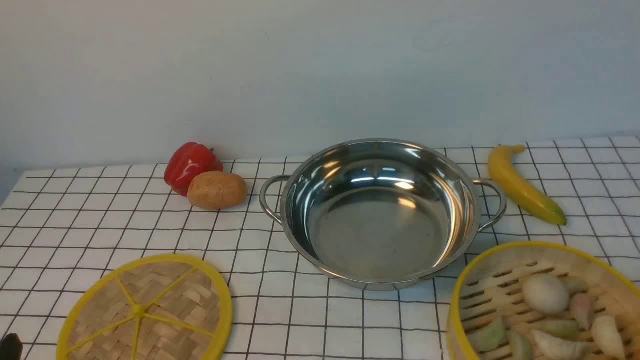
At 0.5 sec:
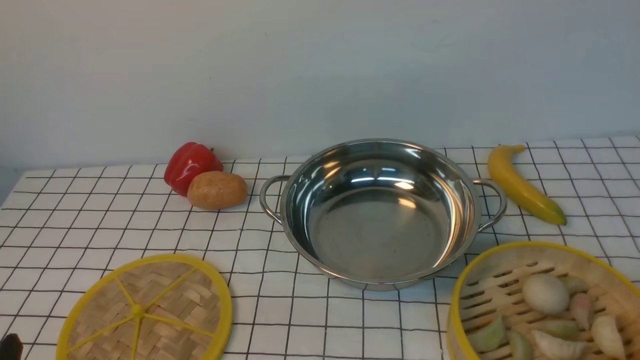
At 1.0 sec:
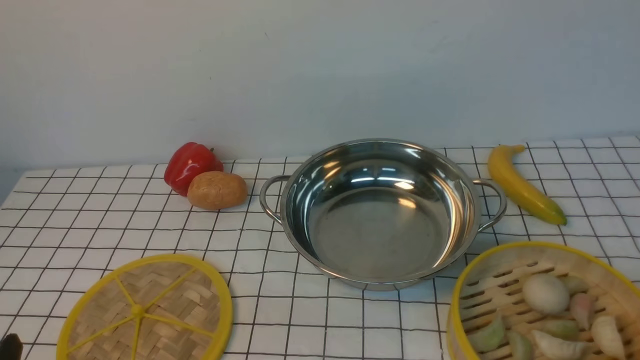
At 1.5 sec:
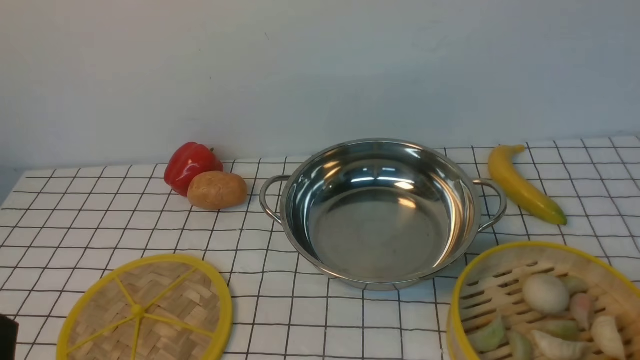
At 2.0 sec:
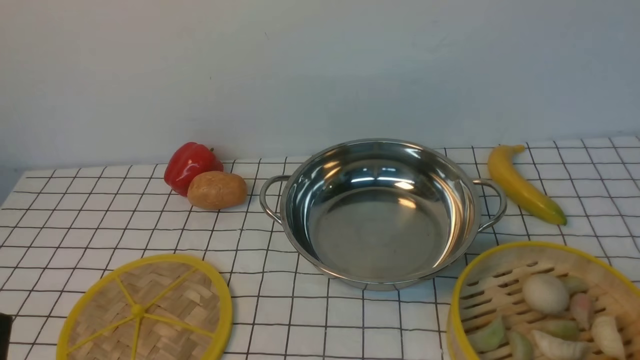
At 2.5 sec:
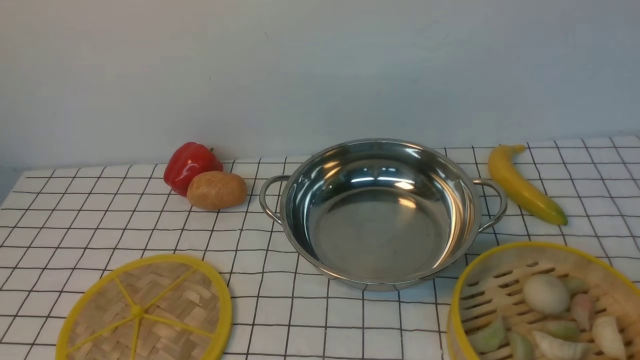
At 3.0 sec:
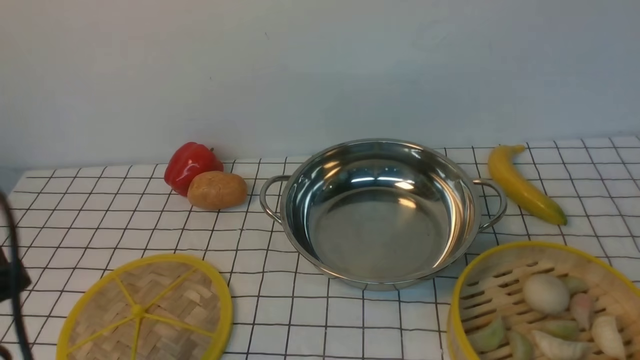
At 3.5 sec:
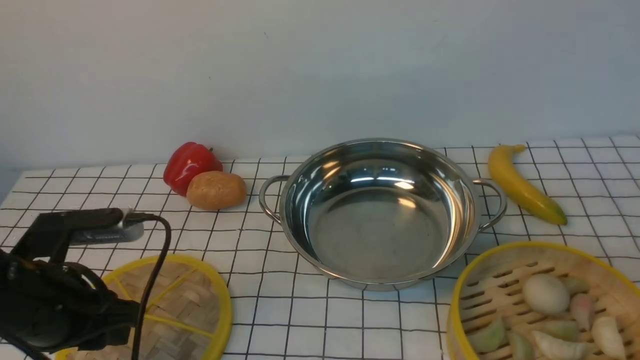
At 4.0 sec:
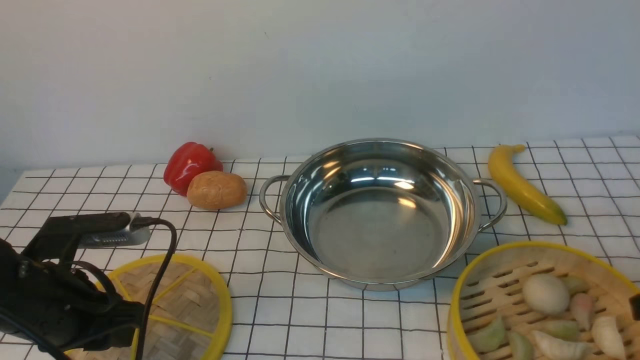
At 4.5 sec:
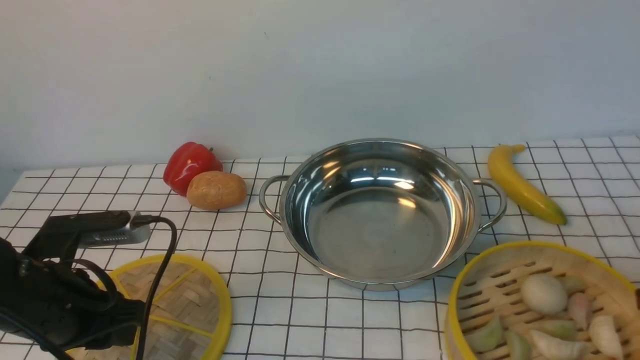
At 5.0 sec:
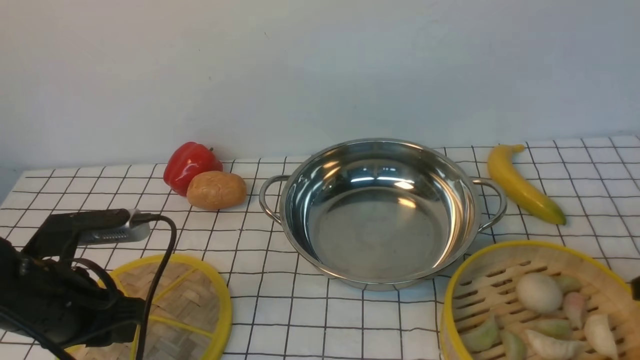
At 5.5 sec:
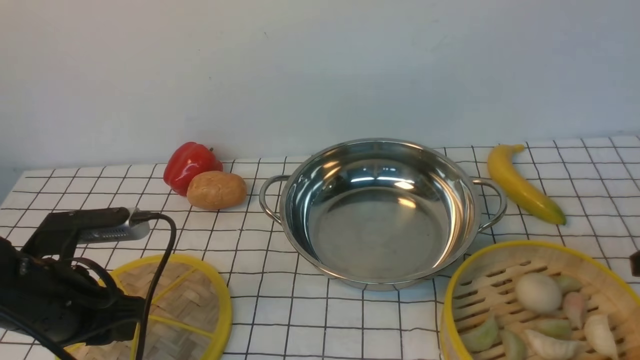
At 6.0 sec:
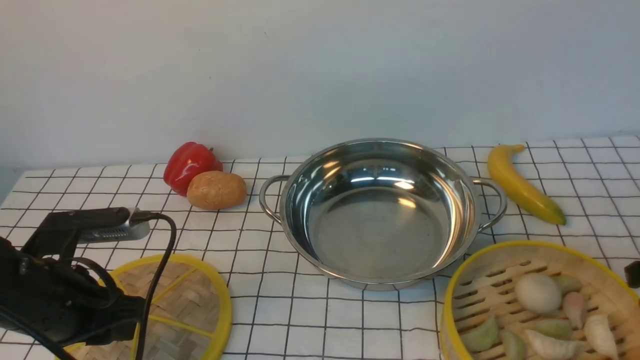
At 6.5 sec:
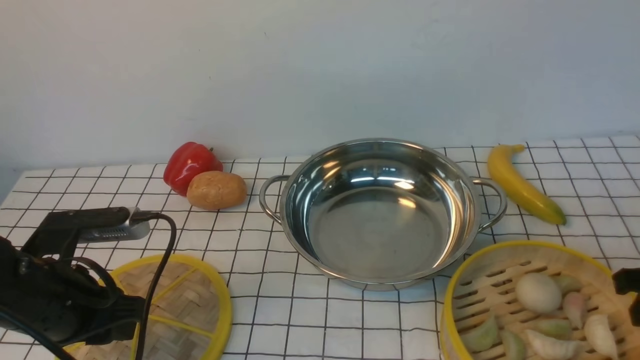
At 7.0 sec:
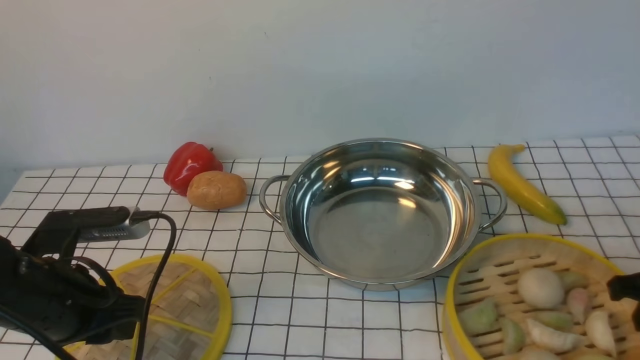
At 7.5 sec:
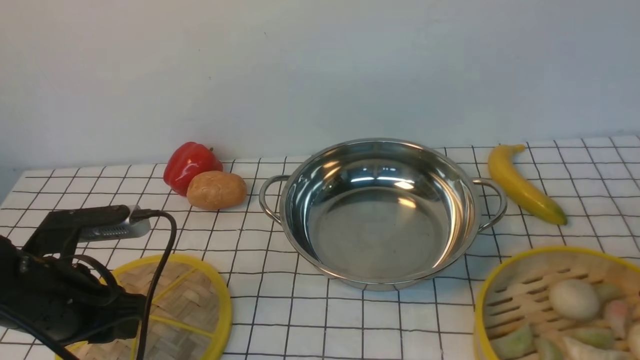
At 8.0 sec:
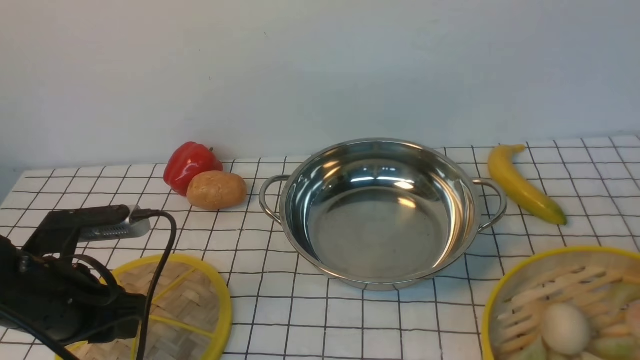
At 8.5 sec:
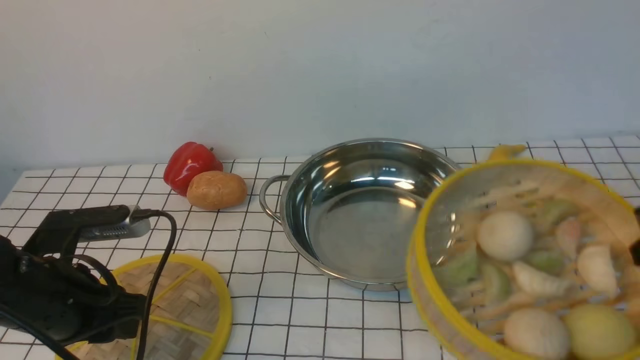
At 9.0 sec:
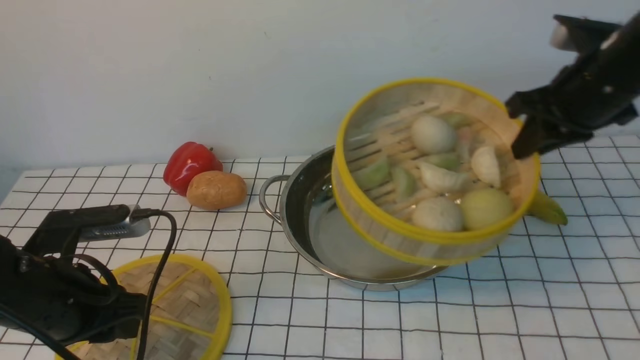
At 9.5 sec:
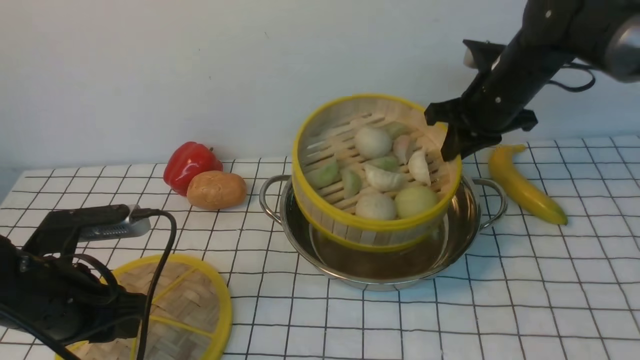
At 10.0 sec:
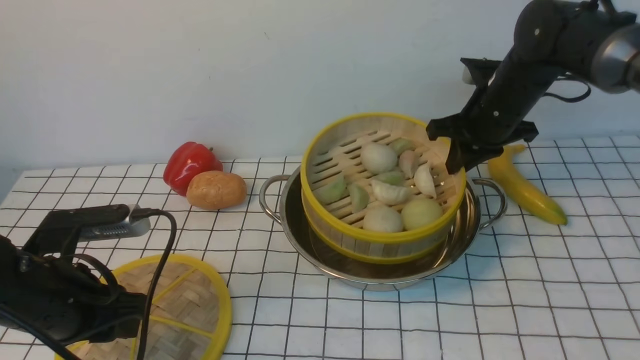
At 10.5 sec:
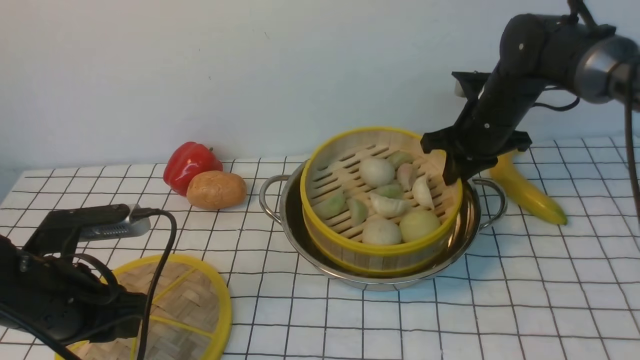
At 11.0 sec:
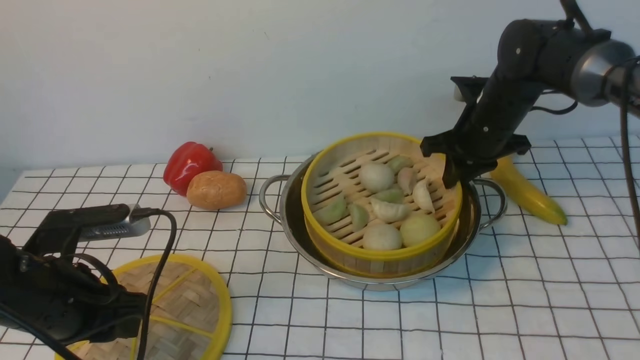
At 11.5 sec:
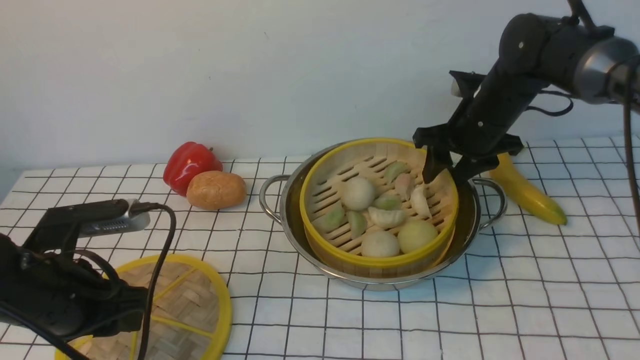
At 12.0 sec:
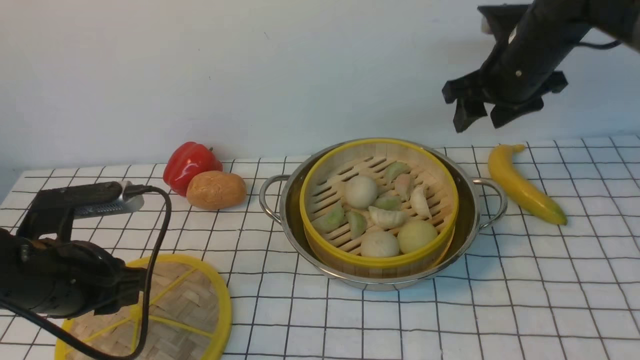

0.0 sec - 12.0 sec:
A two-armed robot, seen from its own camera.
Task of the whole recording: place the steamer in the pot on the white tablecloth, and put the lid on the steamer.
Step, 0.0 sec - 8.0 sec: use the right arm to lift the steamer closest to it.
Step, 8.5 sec - 11.5 sec: use the right arm to put the steamer into the iron steamer pot in the middle.
2.0 sec - 4.0 sec: The left gripper is displaced forward by about 15 cm.
4.0 sec - 6.0 sec: The grippers make only small movements.
6.0 sec - 8.0 sec: The right gripper closes its fingers.
8.0 sec - 10.0 sec: The right gripper goes approximately 30 cm forward and to the left.
10.0 sec - 12.0 sec: The right gripper heads upward, covering some 10 cm, and opens its fingers.

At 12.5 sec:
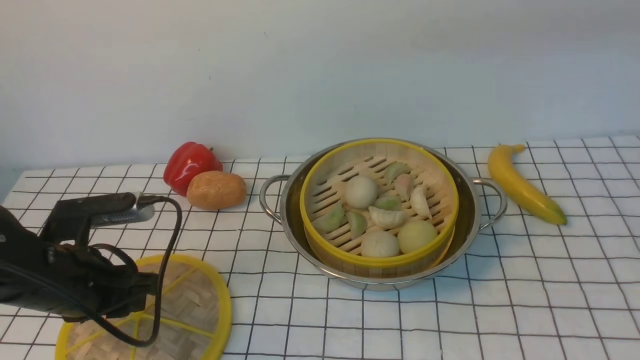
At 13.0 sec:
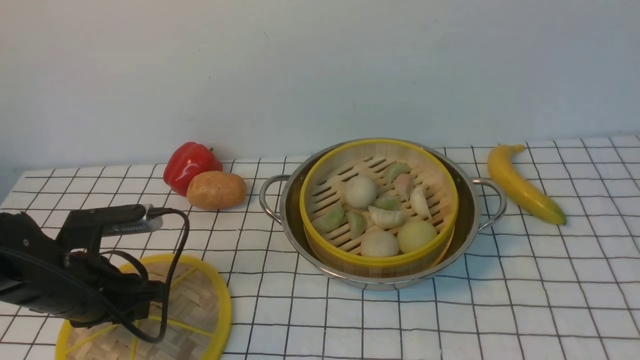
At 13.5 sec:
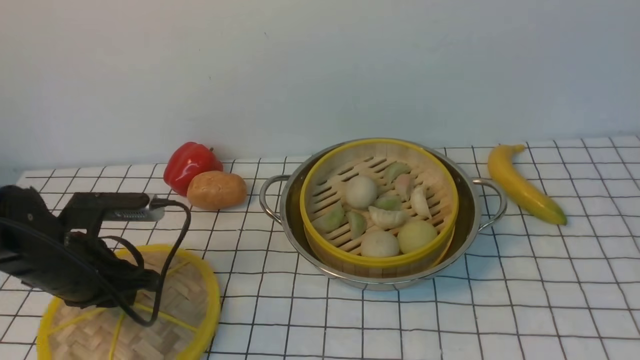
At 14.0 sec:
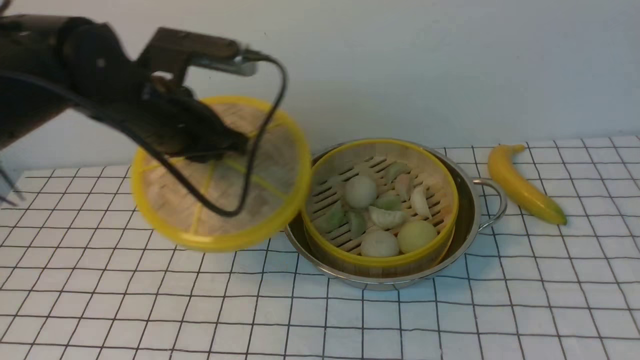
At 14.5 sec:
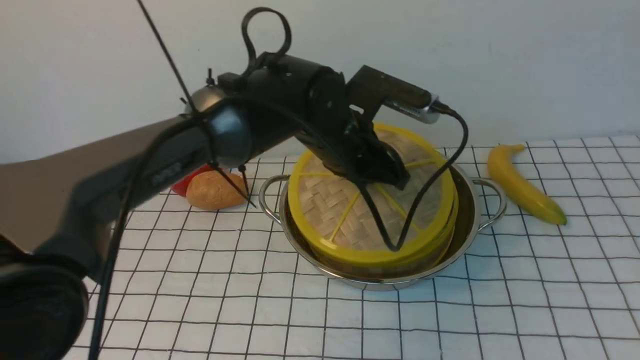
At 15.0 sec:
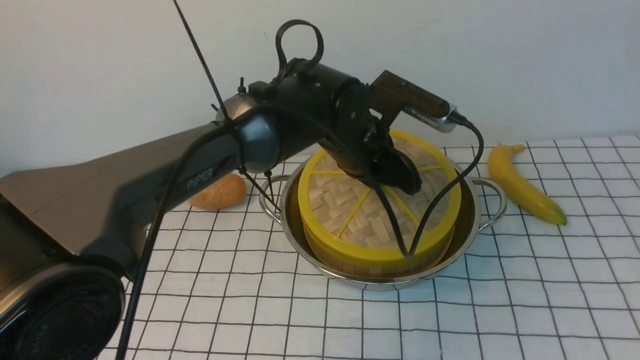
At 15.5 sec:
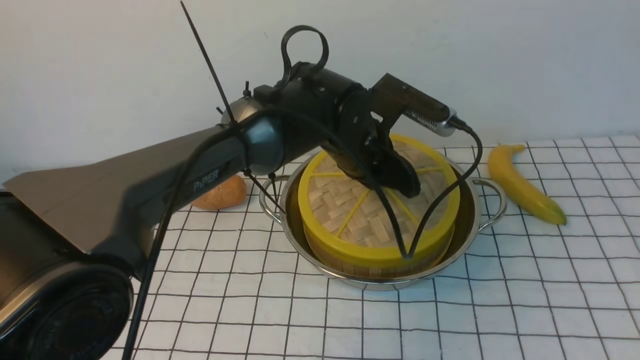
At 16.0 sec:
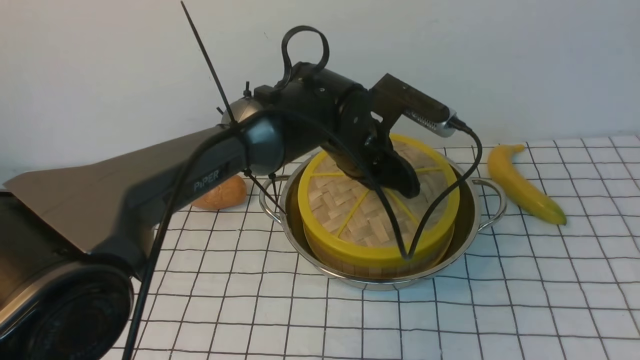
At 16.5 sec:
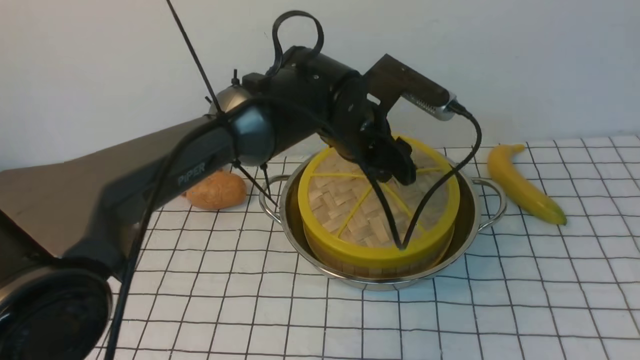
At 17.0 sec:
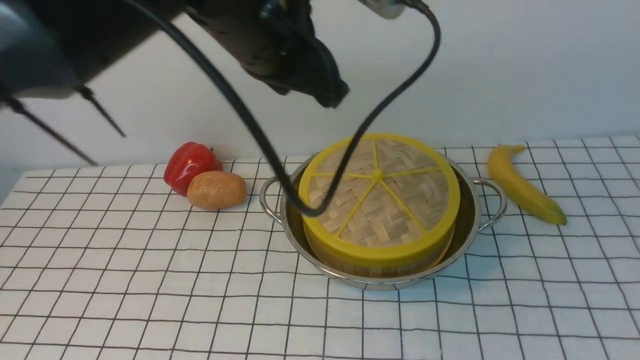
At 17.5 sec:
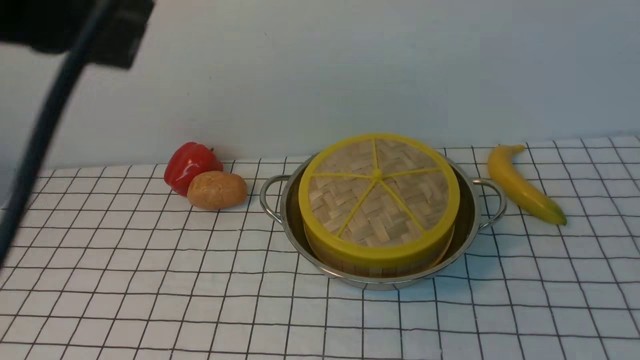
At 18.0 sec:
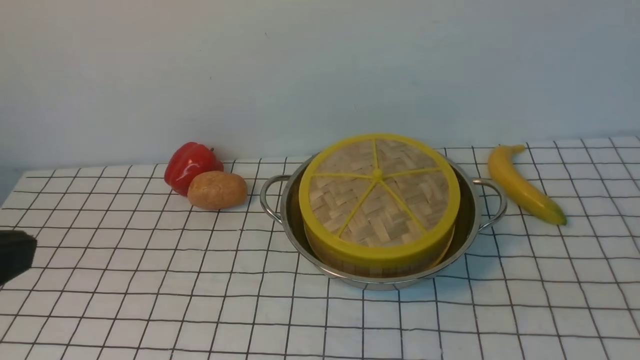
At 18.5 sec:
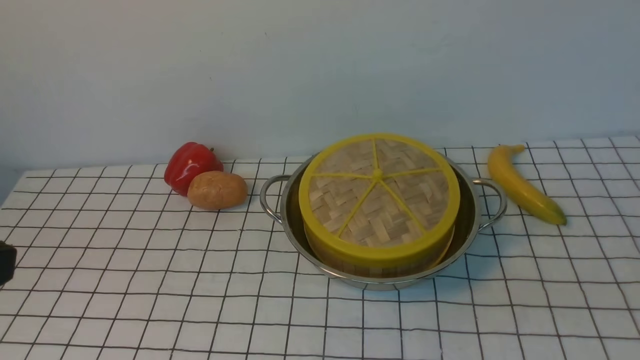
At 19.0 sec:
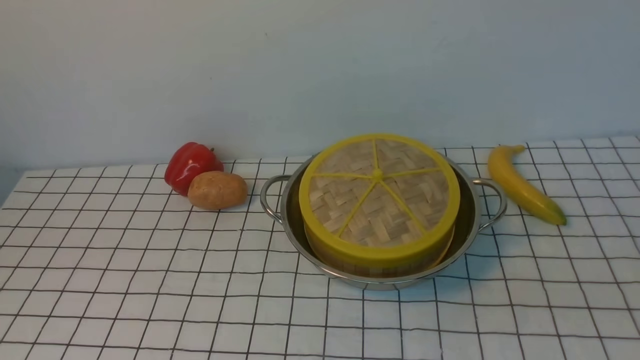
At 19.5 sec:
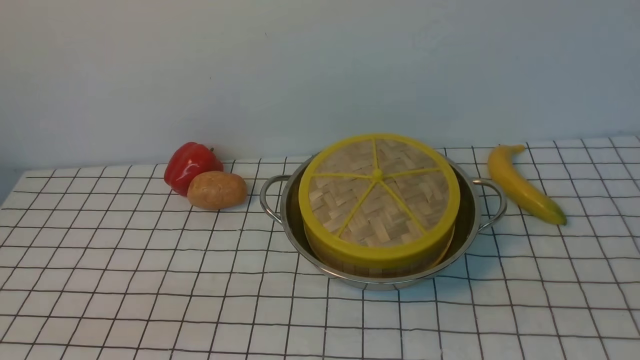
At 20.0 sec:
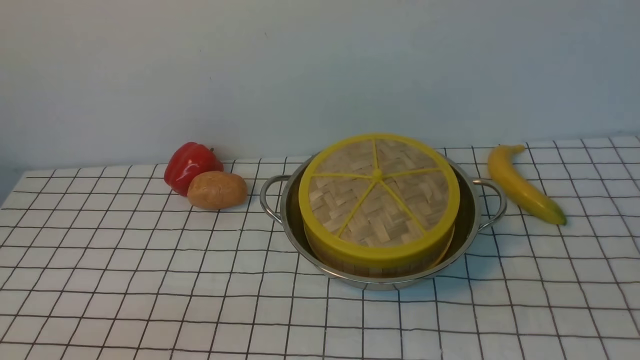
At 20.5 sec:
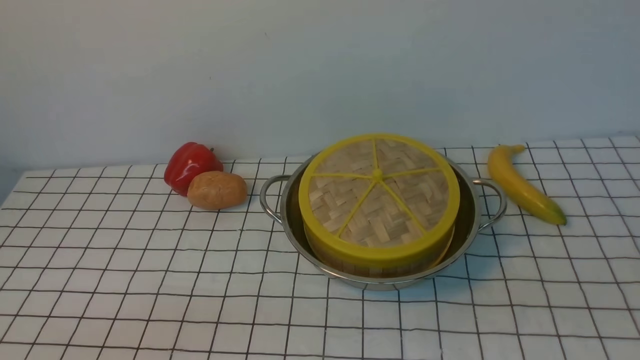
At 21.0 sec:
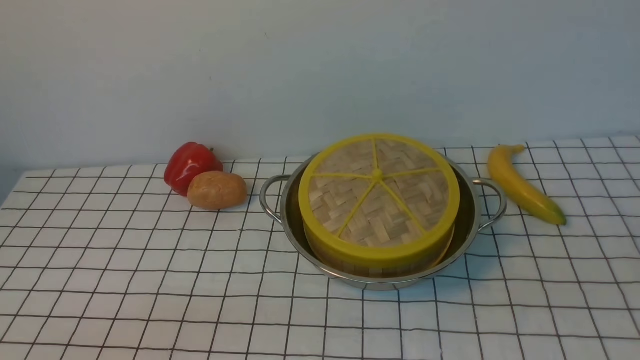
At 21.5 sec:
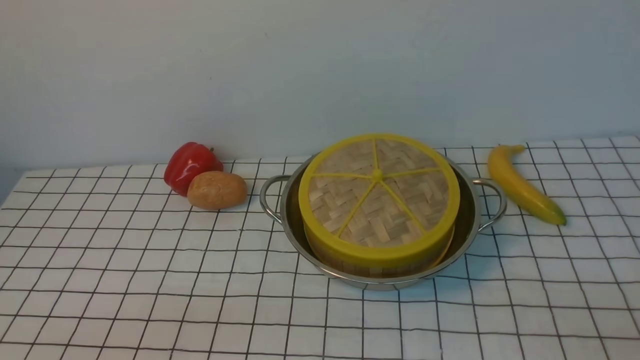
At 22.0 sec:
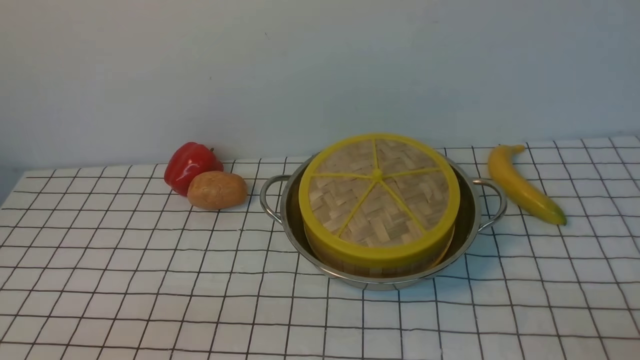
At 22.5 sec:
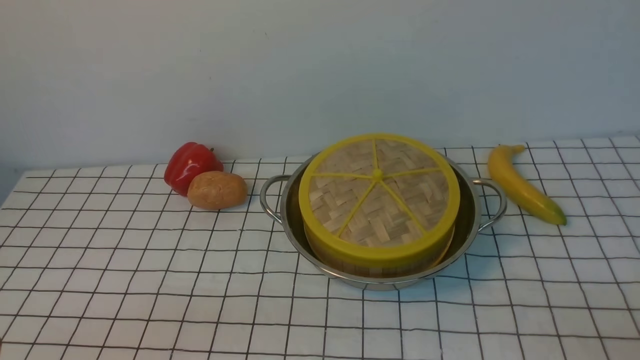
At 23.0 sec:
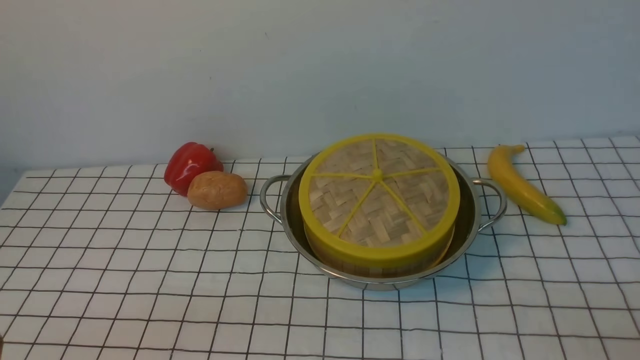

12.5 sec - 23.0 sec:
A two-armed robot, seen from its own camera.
Task of the whole recording: place the steamer in the pot on the white tablecloth, and put the lid on the steamer.
Step, 12.5 sec - 13.5 sec: use the left arm to lift the lid of the steamer.
Step, 14.0 sec - 16.5 sec: use the left arm to place the steamer lid on the steamer.
12.5 sec - 14.5 sec: The right gripper is displaced backward by approximately 25 cm. The left gripper travels to the right and forward by roughly 30 cm.
14.5 sec - 16.5 sec: The left gripper opens up.
16.5 sec - 19.0 sec: The right gripper moves downward, approximately 25 cm, and closes; the left gripper moves backward and to the left, approximately 40 cm, and closes its fingers.
